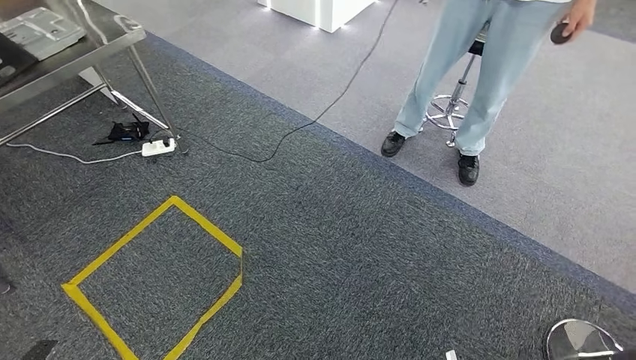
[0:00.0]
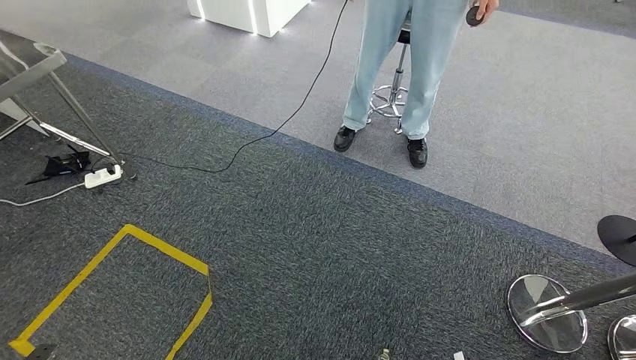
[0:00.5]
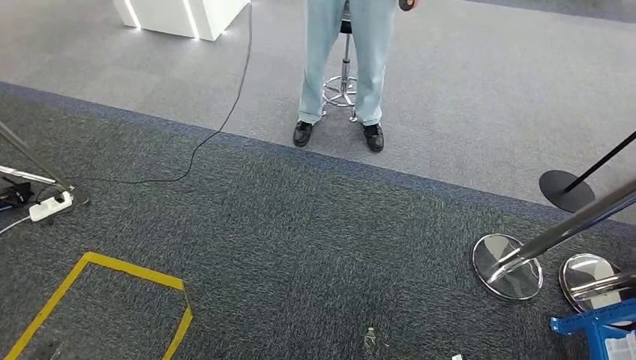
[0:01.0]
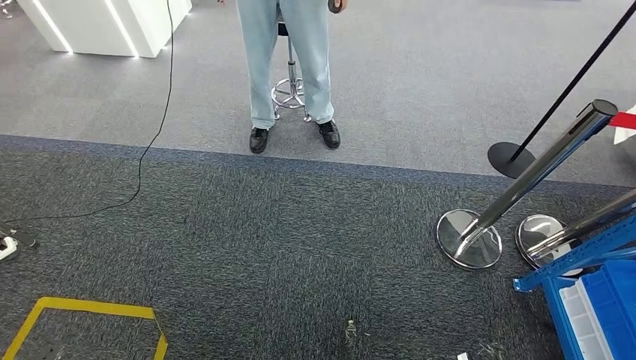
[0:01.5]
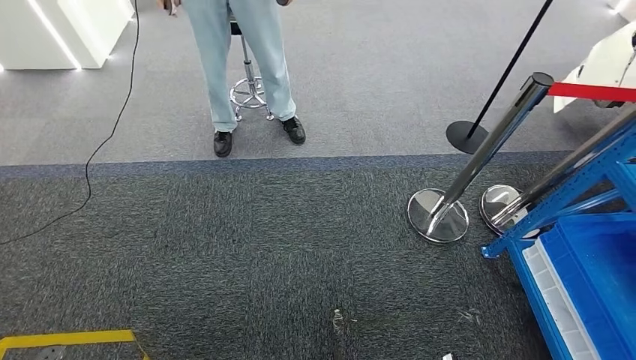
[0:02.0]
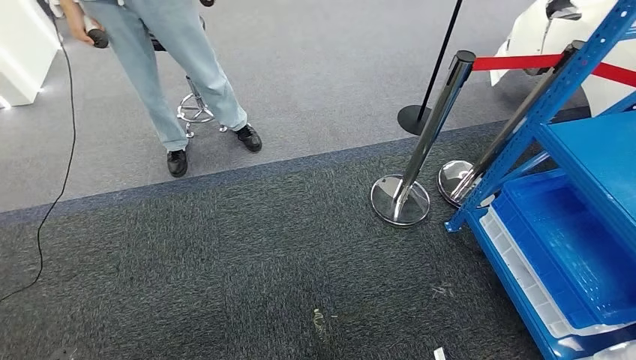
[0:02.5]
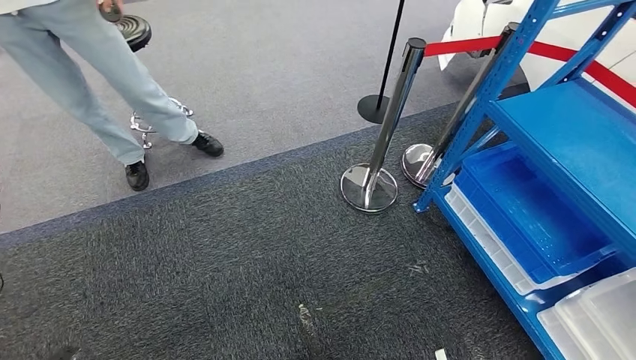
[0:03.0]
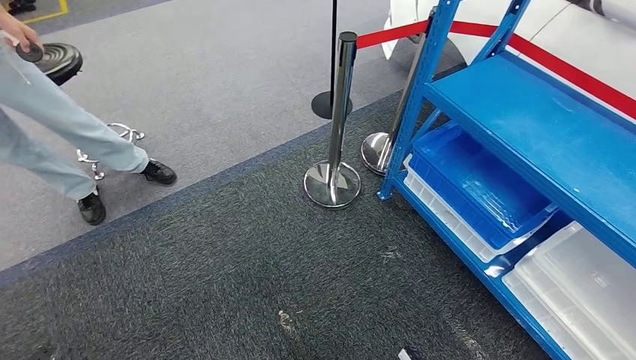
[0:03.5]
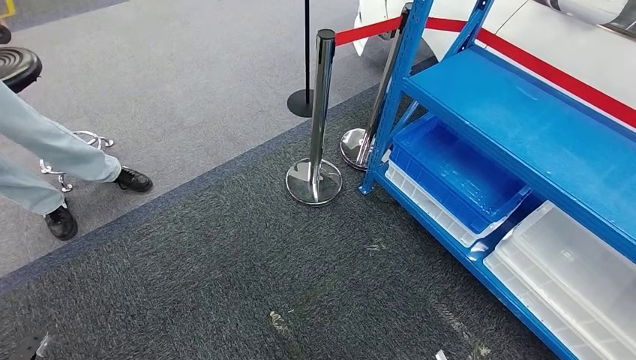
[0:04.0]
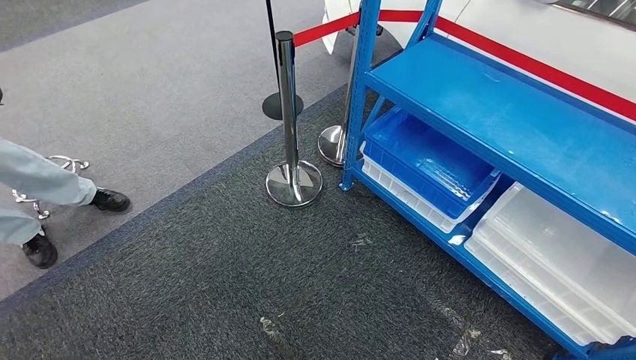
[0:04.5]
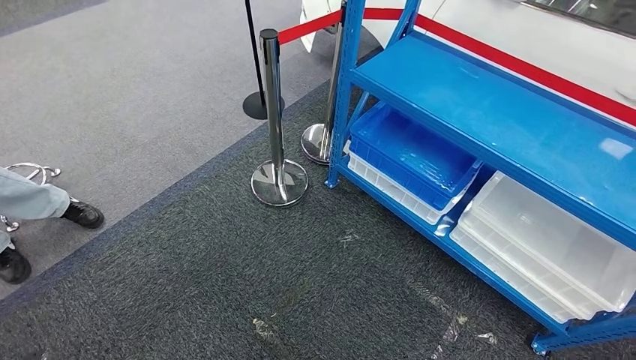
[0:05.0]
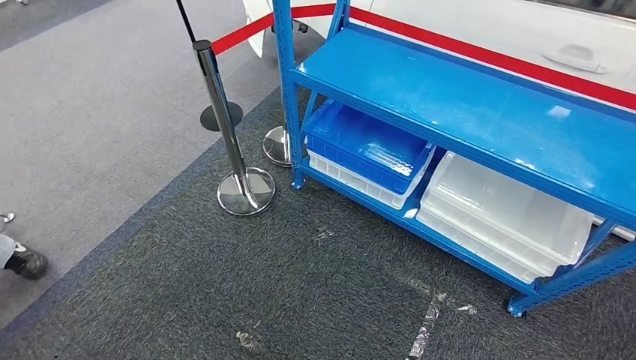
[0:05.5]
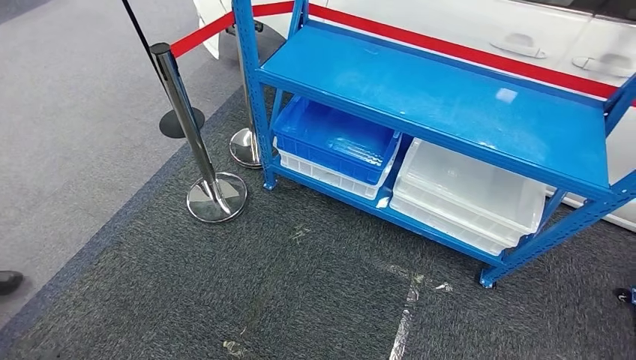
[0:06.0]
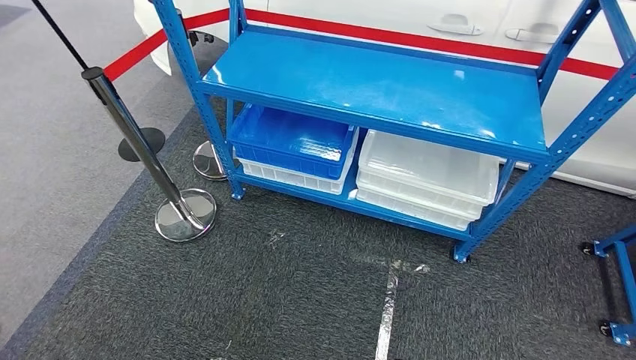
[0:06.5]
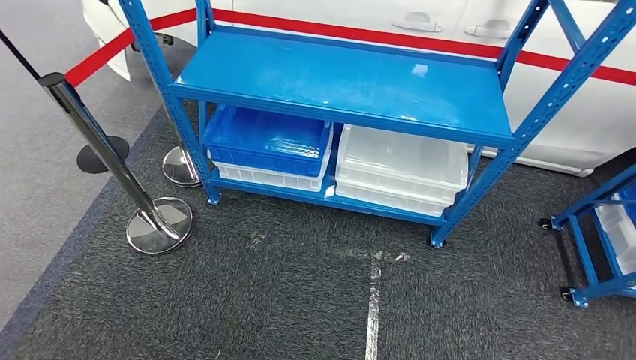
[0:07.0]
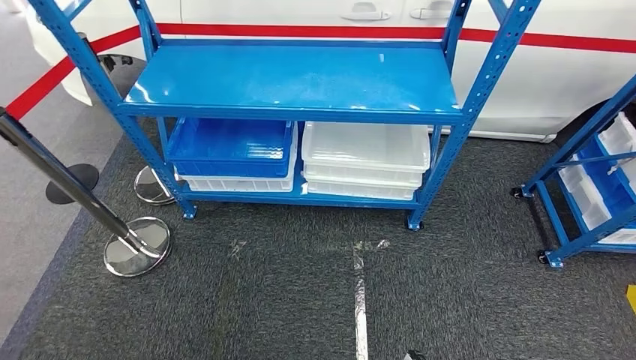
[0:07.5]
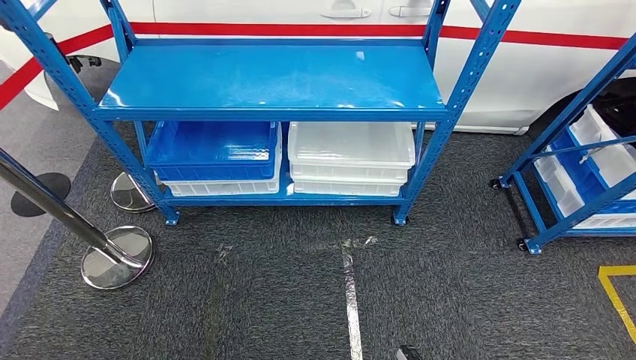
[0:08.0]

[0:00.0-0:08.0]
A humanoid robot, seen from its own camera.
Step, 0:00.0 to 0:08.0: Move to the initial position of the shelf.
